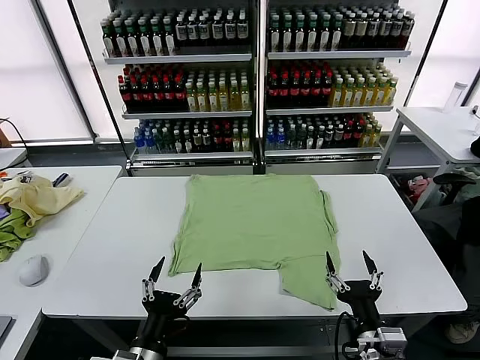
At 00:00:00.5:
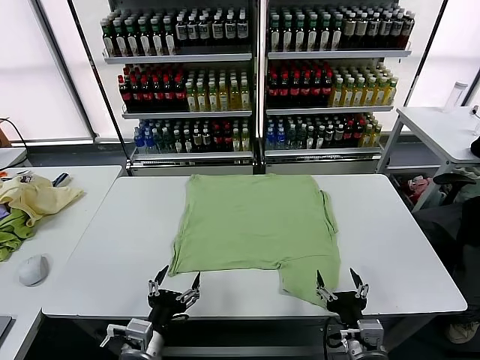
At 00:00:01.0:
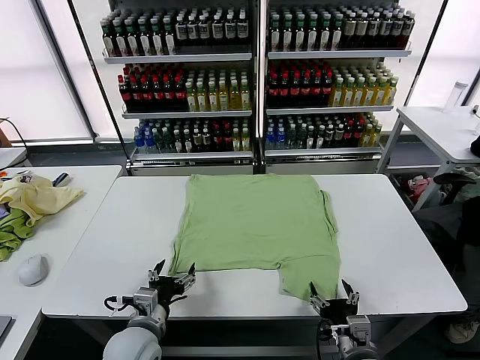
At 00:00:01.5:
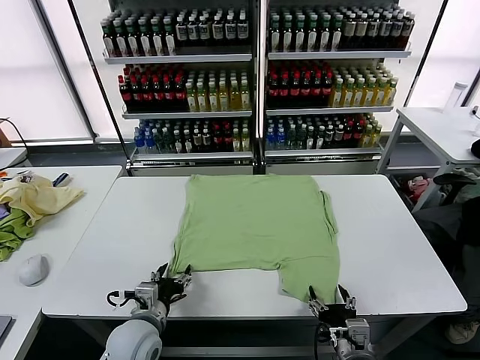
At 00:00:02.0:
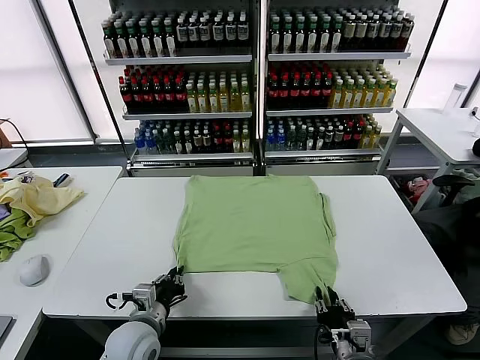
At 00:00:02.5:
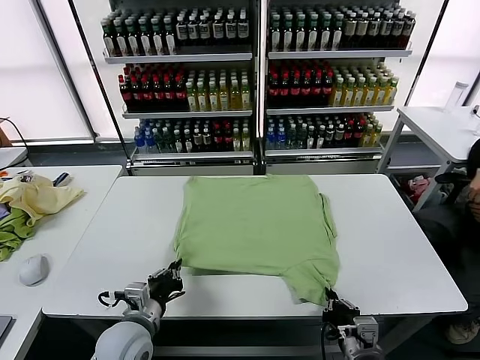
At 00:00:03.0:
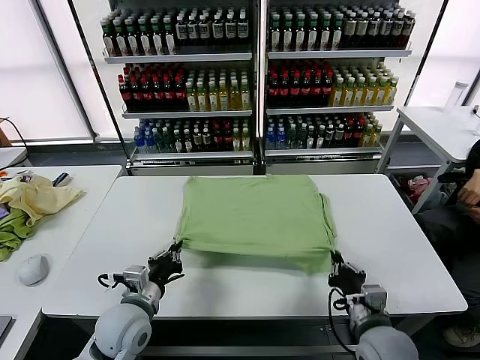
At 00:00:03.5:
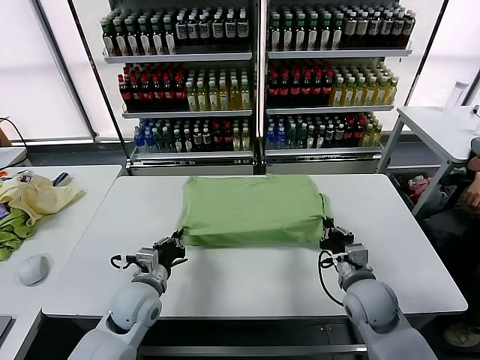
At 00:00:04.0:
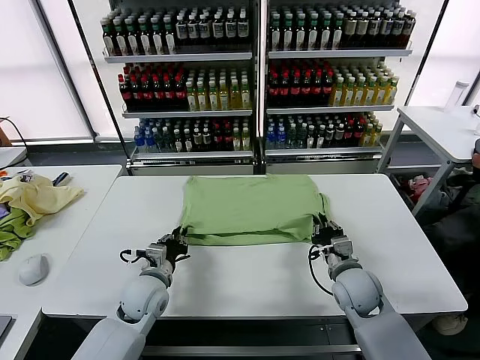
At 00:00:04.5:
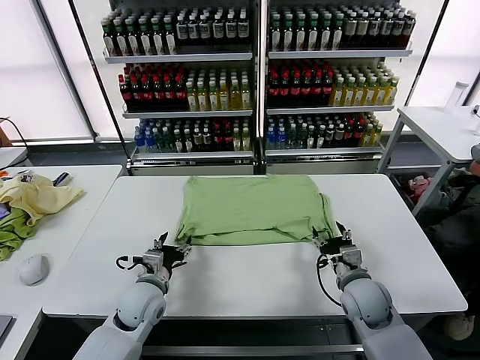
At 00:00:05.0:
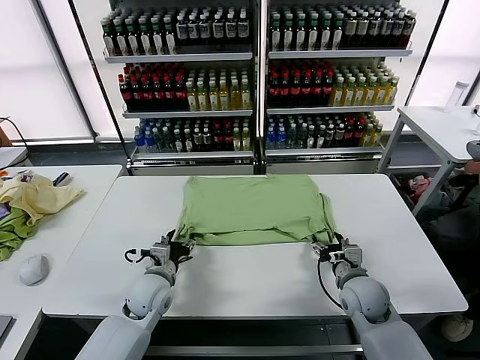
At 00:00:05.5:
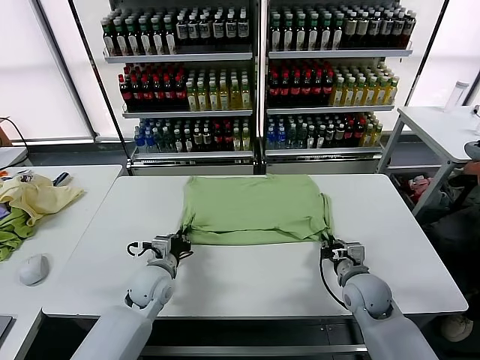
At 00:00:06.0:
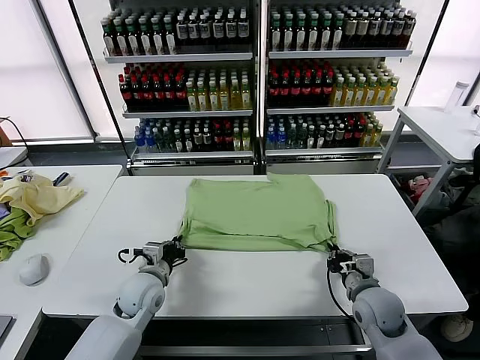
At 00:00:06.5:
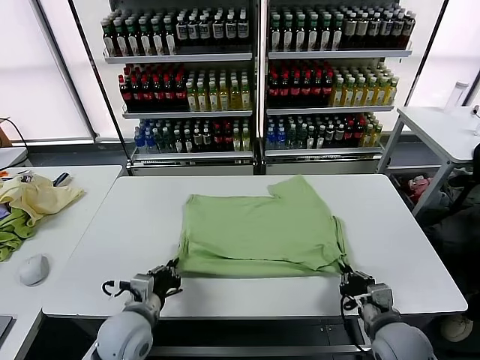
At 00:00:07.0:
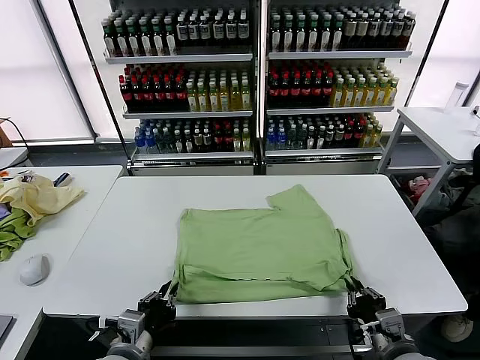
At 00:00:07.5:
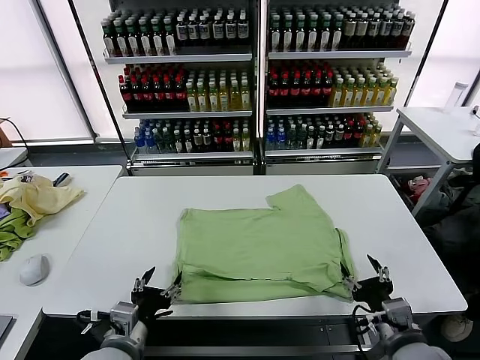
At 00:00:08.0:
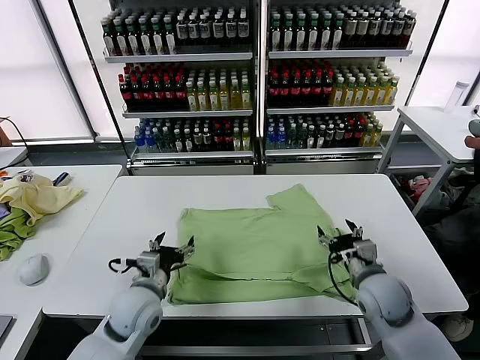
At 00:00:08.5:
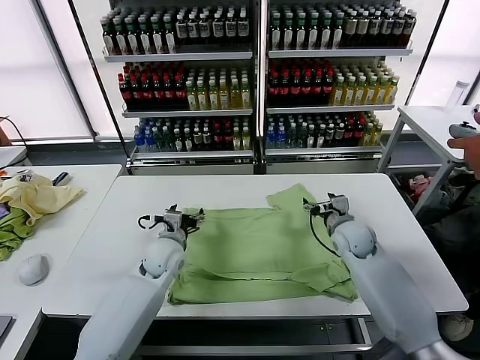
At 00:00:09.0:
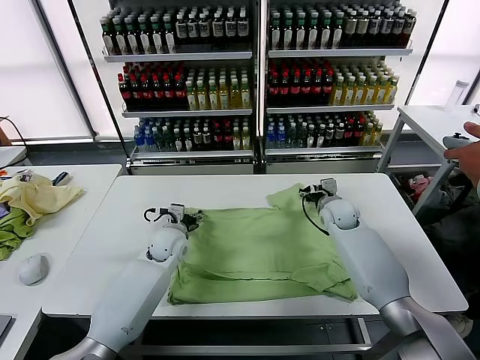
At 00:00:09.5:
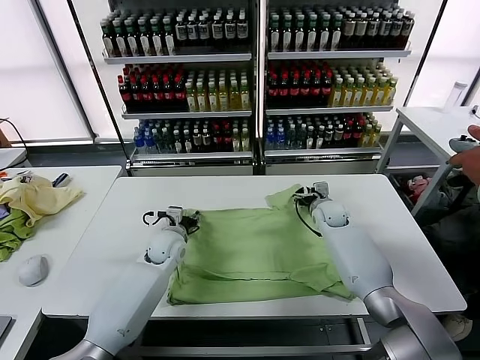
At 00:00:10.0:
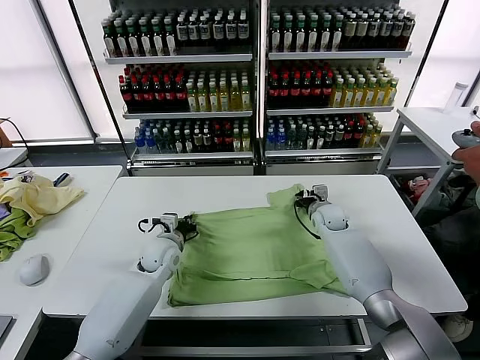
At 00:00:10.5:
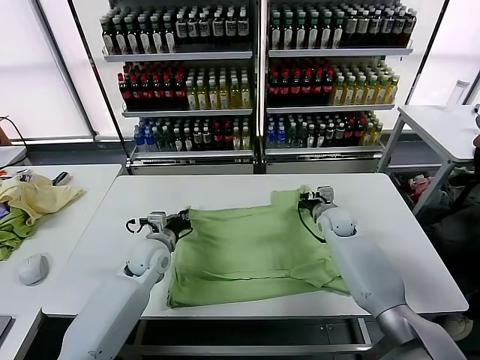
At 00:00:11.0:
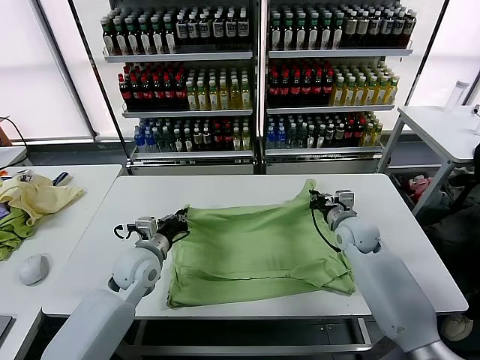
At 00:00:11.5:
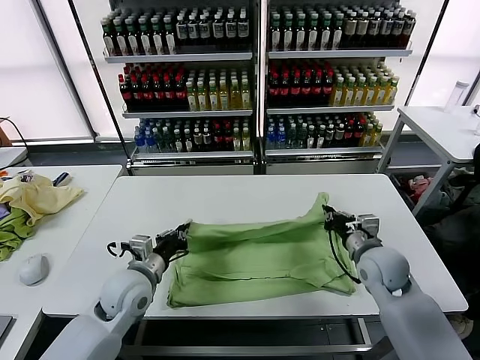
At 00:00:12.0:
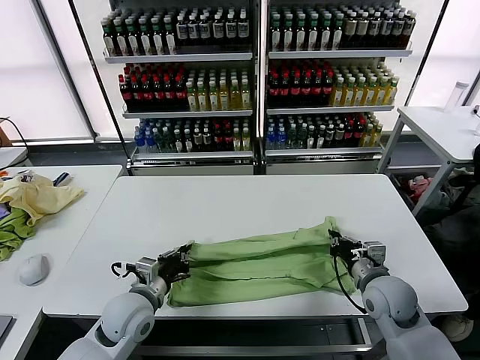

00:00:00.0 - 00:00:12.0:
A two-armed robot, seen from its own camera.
Task of the whole recording: fold and organize the clothes.
Step, 00:00:00.0 - 00:00:02.0: use both grippers simultaneously to clamp the lower edge of the clothing fabric.
Step, 00:00:02.5 - 00:00:04.0: use both grippers to drag the lower edge of the fabric forward and fold it over the upper edge.
Step, 00:00:04.5 - 00:00:07.0: Drag the clothes downward with both gripper.
Step, 00:00:07.5 - 00:00:10.0: use both grippers simultaneously to clamp the upper edge of the clothing fabric.
00:00:02.0 - 00:00:04.0: The right gripper travels forward by about 20 cm. The left gripper heads forward, covering approximately 10 cm.
00:00:04.0 - 00:00:06.0: The left gripper opens, then closes once more. Meanwhile the right gripper changes place by about 5 cm, and closes its fingers.
00:00:06.0 - 00:00:08.0: The right gripper reaches about 15 cm backward, then returns, and opens, while the left gripper reaches roughly 20 cm backward, then returns, and opens.
00:00:08.0 - 00:00:10.0: The two grippers go approximately 20 cm forward. The left gripper closes up. The right gripper closes up.
00:00:10.0 - 00:00:12.0: The right gripper travels backward by approximately 25 cm, while the left gripper shifts about 15 cm backward.

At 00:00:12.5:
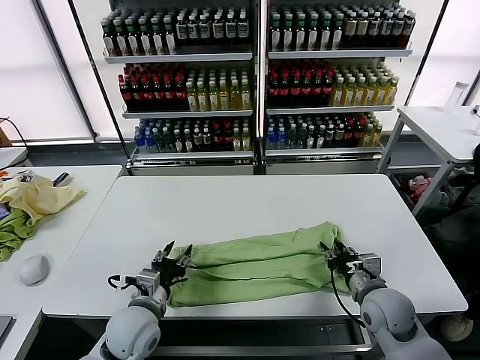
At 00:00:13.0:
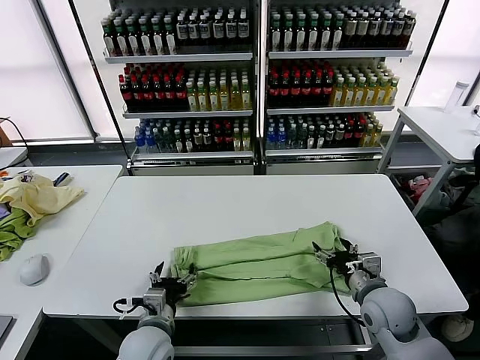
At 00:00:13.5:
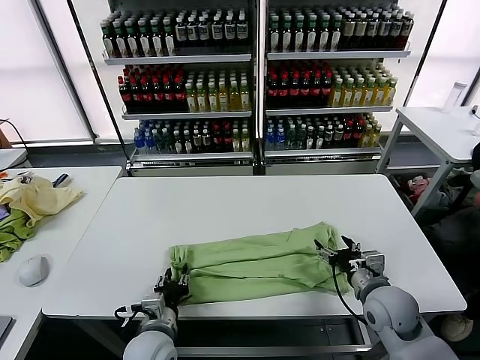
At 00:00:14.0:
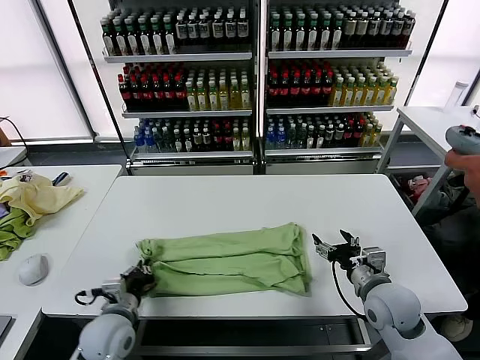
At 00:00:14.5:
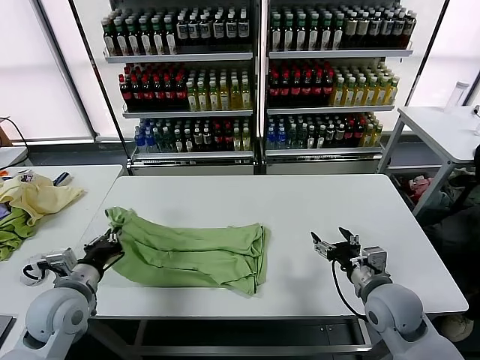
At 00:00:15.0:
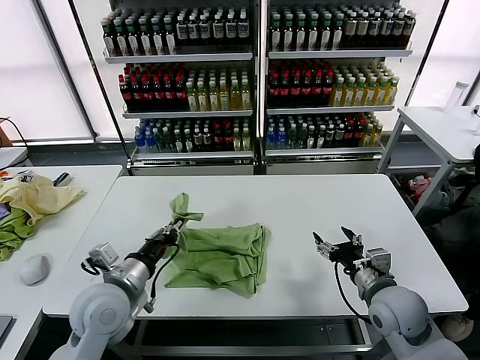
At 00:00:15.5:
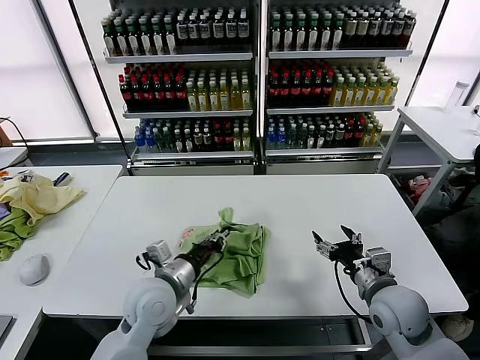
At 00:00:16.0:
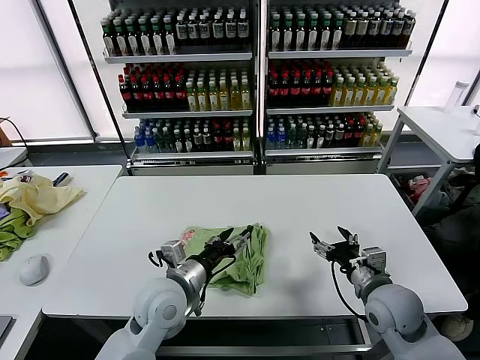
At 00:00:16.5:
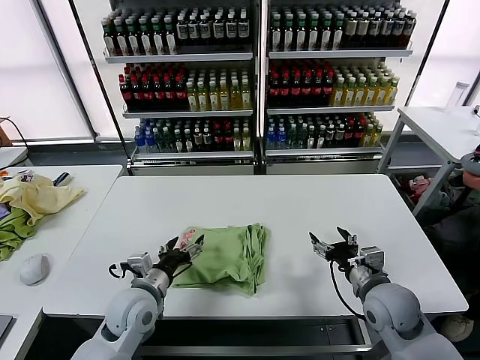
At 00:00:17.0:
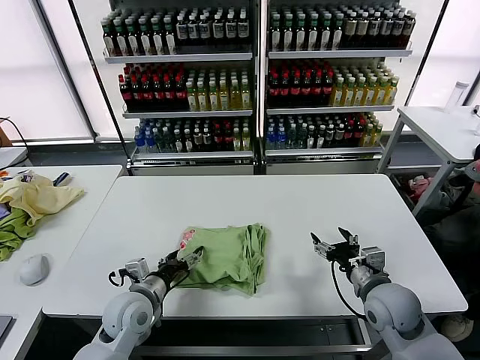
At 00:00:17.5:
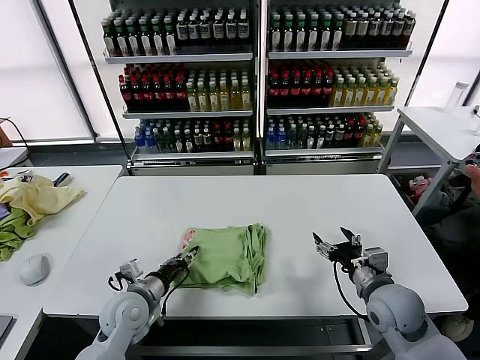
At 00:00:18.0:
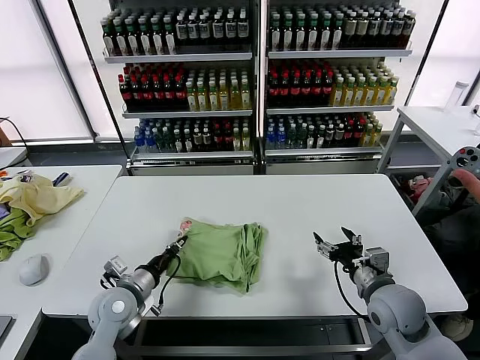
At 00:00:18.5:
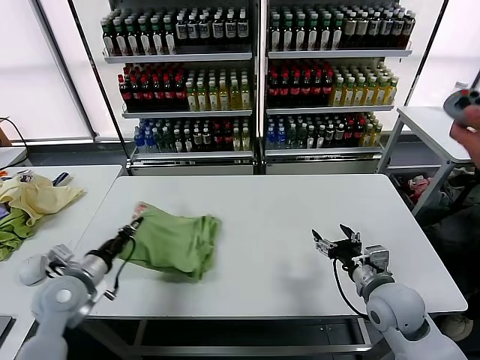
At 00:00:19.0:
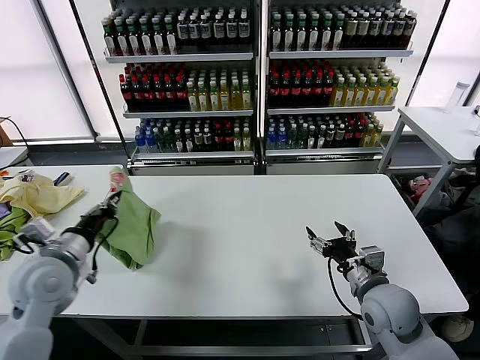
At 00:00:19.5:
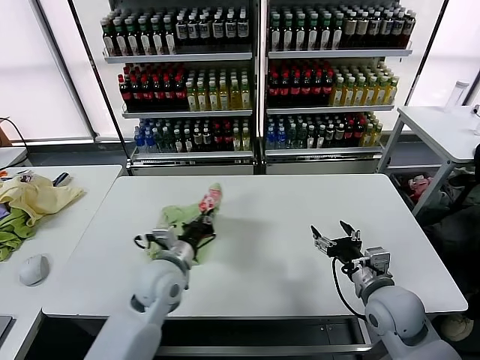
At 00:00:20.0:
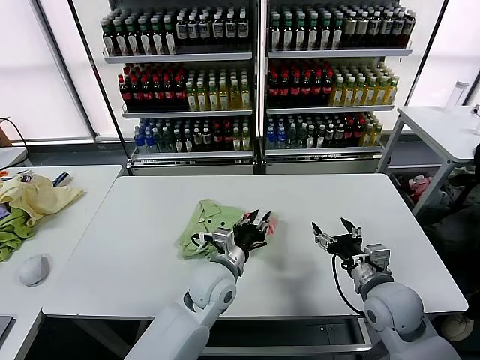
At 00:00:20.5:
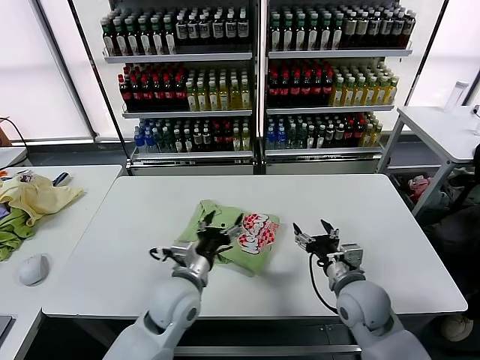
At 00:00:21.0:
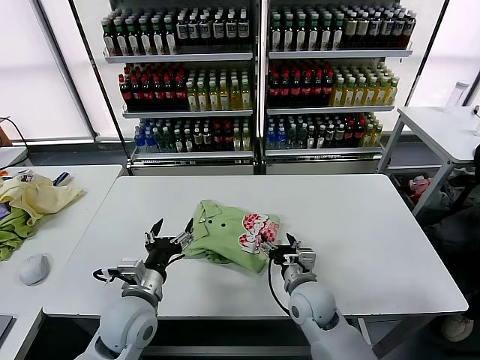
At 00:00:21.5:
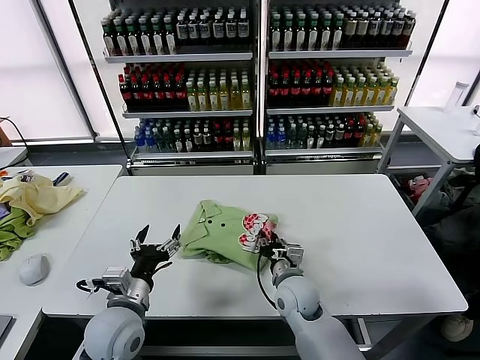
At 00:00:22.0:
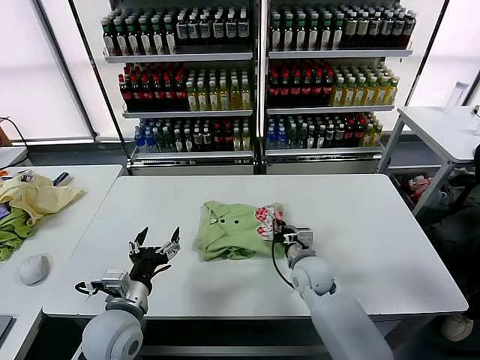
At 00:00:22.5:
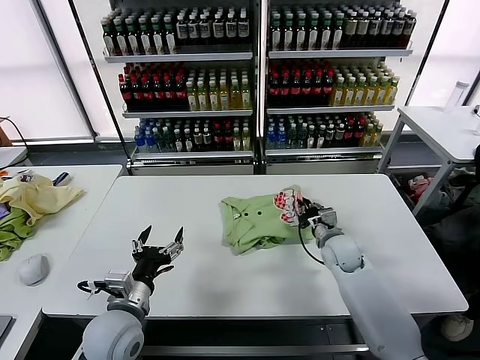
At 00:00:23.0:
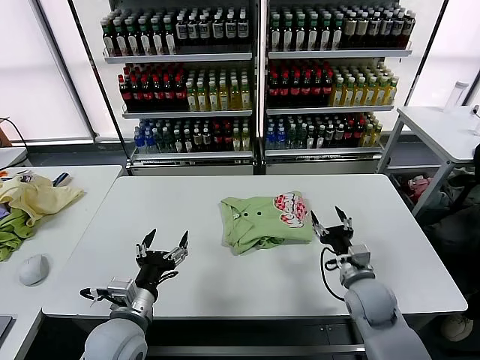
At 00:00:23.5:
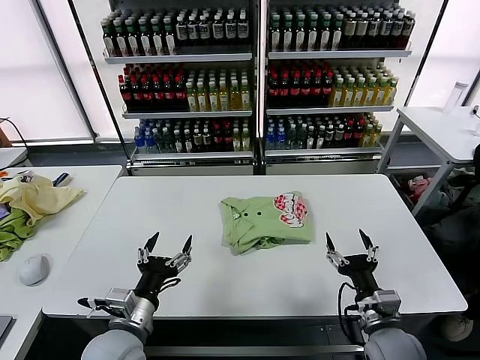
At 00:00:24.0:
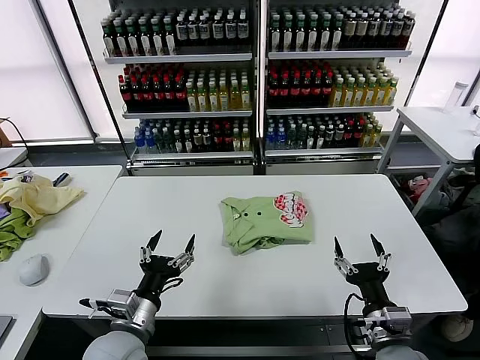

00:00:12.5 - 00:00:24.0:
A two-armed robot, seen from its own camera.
Task of the whole recording: fold and organize the clothes.
Step, 00:00:13.0 - 00:00:13.5: use the left gripper to clamp the left edge of the fabric.
Step, 00:00:14.0 - 00:00:15.5: use the left gripper to drag the left edge of the fabric to the left and folds it over the right edge.
Step, 00:00:16.0 - 00:00:20.0: Flip the folded clothes over with left gripper.
Step, 00:00:20.5 - 00:00:22.5: Drag the clothes to the center of the table.
00:00:12.5 - 00:00:14.5: The right gripper opens up, while the left gripper shifts approximately 15 cm to the left and upward, and closes up.
00:00:14.5 - 00:00:16.5: The left gripper heads to the right, covering about 10 cm, and opens.
00:00:16.5 - 00:00:18.5: The left gripper travels to the left by roughly 10 cm, and closes its fingers.
00:00:18.5 - 00:00:20.0: The left gripper moves to the right, roughly 30 cm.
00:00:20.0 - 00:00:22.0: The left gripper is displaced to the left and backward by approximately 20 cm, and opens its fingers; the right gripper goes approximately 20 cm to the left, forward and downward, and closes.
00:00:22.0 - 00:00:24.0: The right gripper moves backward and to the right, roughly 25 cm, and opens up.
